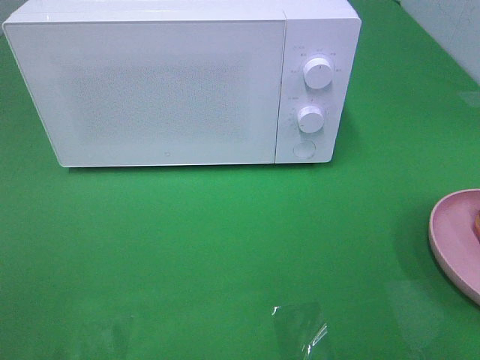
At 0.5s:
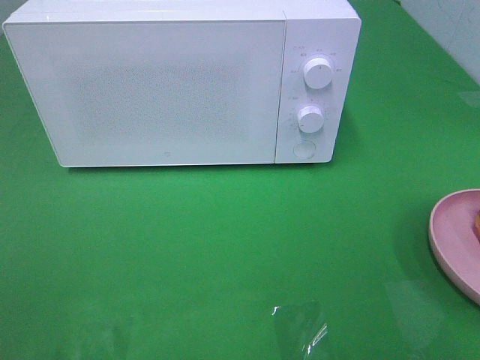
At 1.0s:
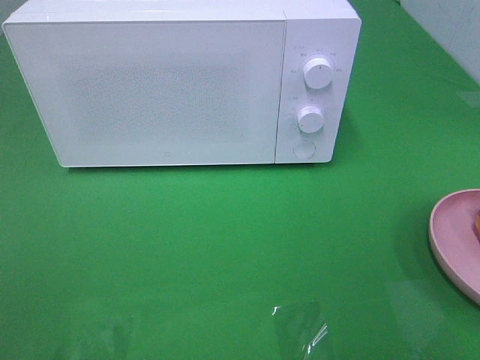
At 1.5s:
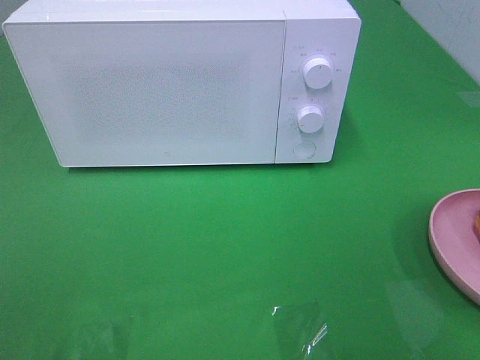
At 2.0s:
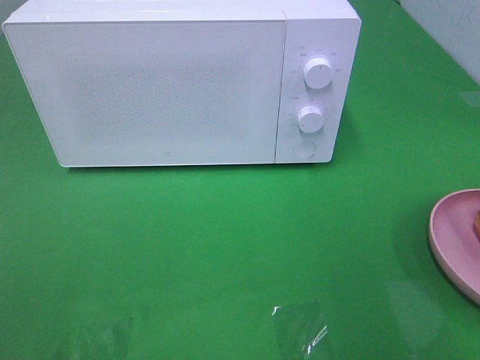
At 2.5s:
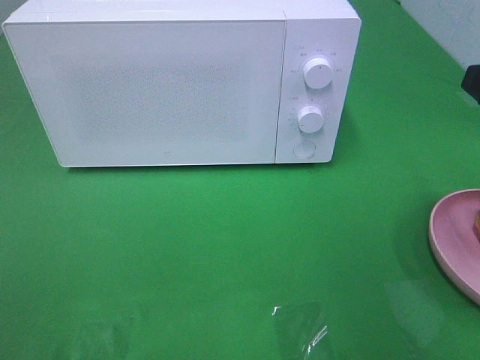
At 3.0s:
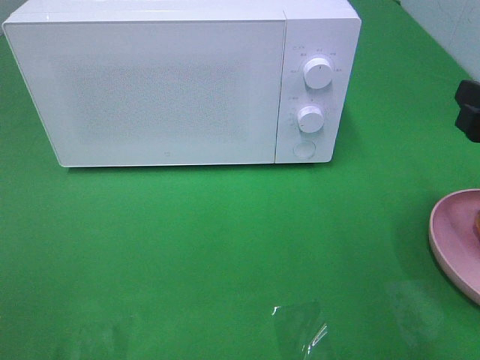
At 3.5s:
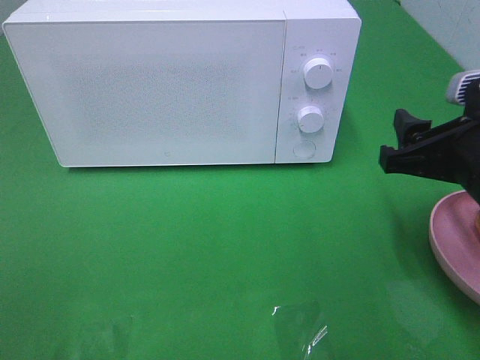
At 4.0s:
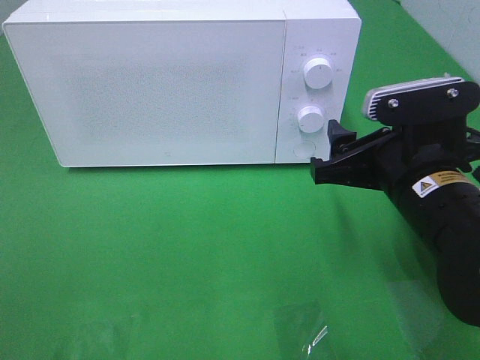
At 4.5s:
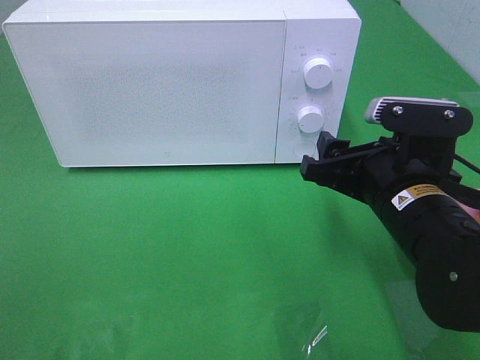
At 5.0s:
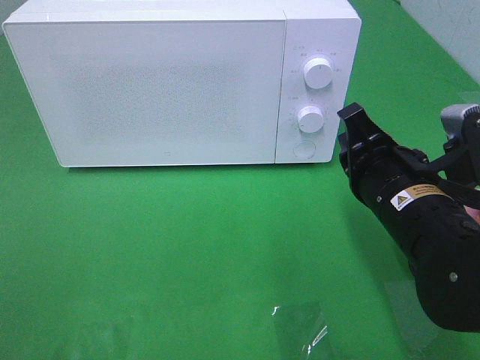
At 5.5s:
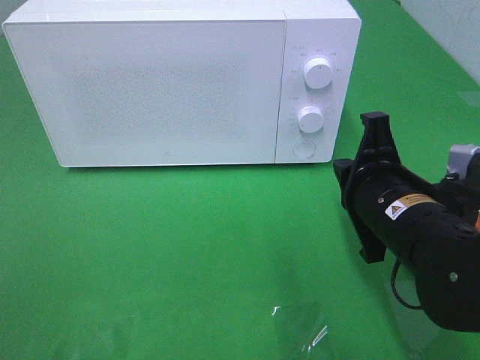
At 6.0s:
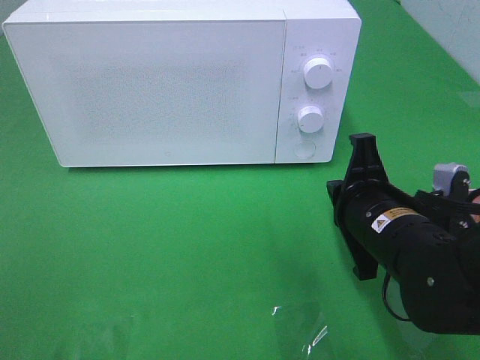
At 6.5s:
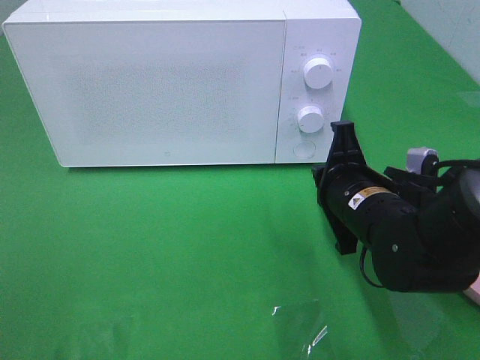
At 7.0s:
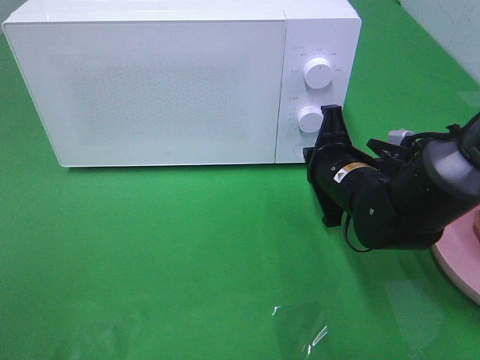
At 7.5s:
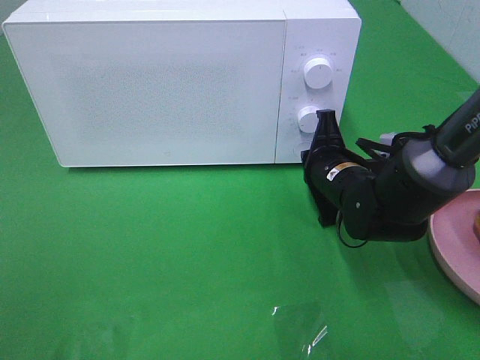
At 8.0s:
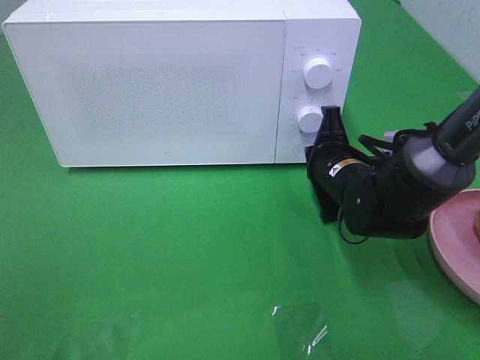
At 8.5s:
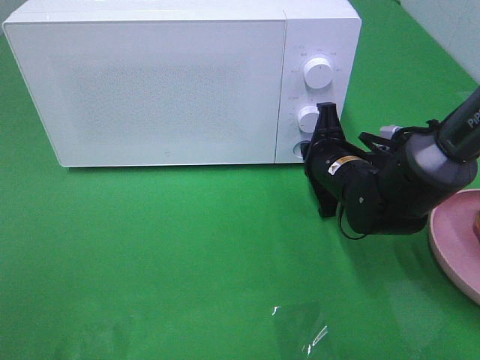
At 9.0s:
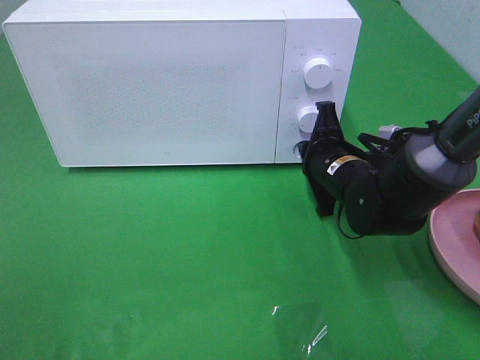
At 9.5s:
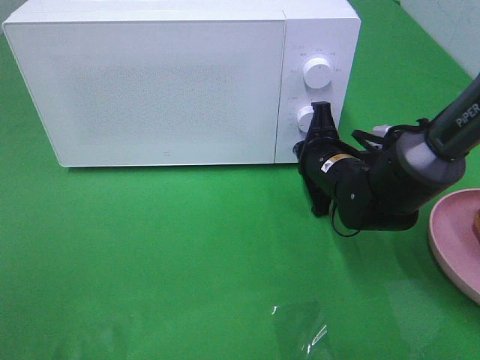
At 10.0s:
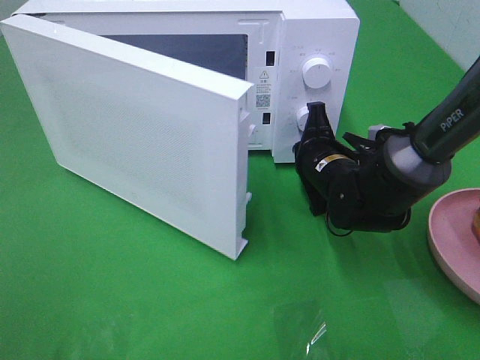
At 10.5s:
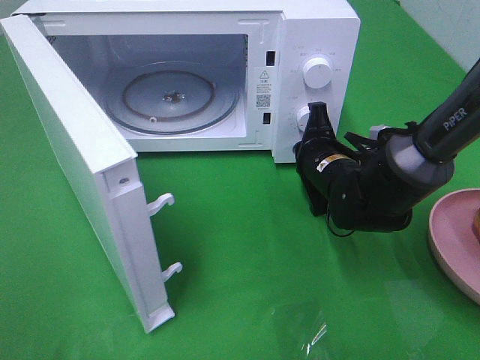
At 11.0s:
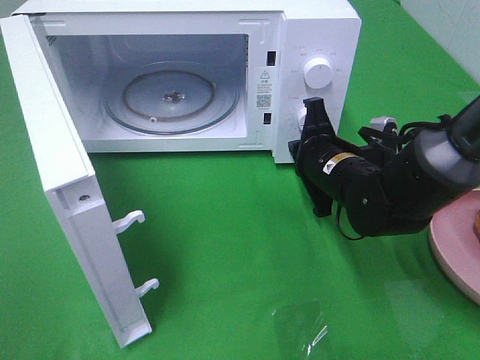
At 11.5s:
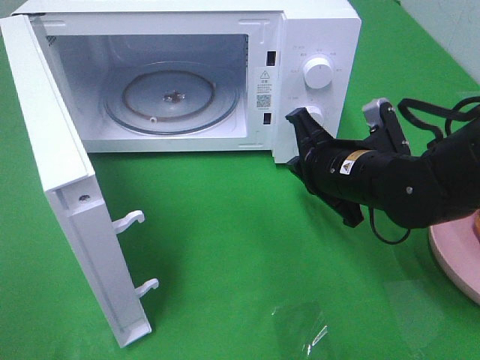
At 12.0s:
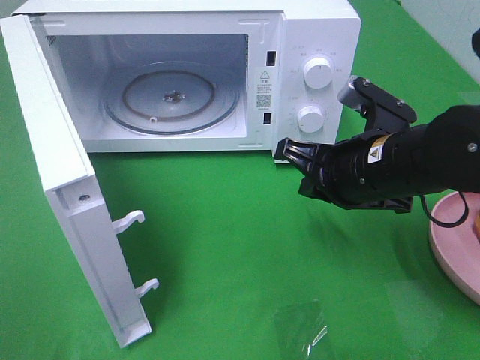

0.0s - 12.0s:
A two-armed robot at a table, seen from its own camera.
Task of the whole recording: Heat the burger.
Step, 0.0s - 10.5s: Right hand: press the switch.
2.0s - 4.0s: The right gripper goes about 20 cm downward, to the left and forward.
4.0s - 6.0s: The right gripper shifts some 5 cm downward, and closes its fingers.
6.0s - 8.0s: The right gripper shifts some 10 cm forward.
10.0s - 12.0s: The right gripper goes approximately 15 cm backward and upward.

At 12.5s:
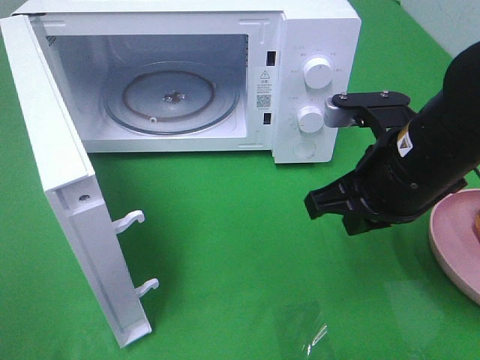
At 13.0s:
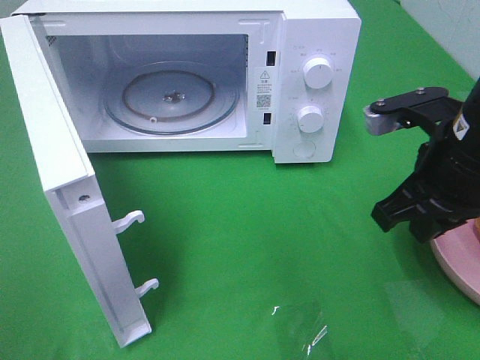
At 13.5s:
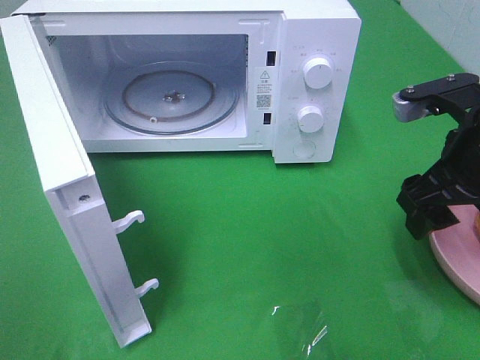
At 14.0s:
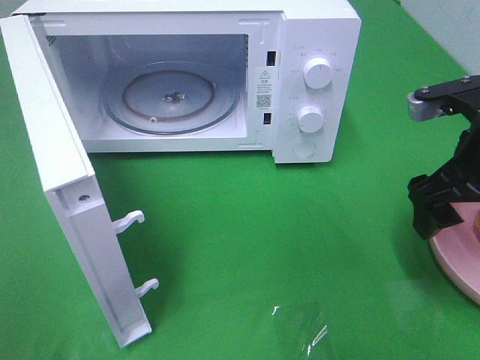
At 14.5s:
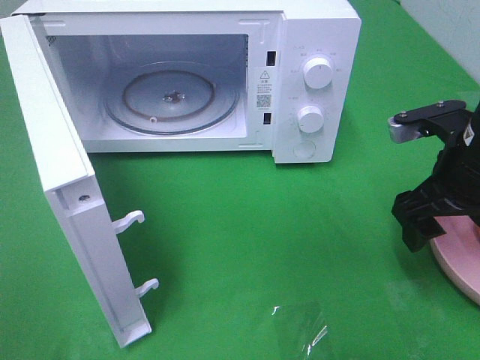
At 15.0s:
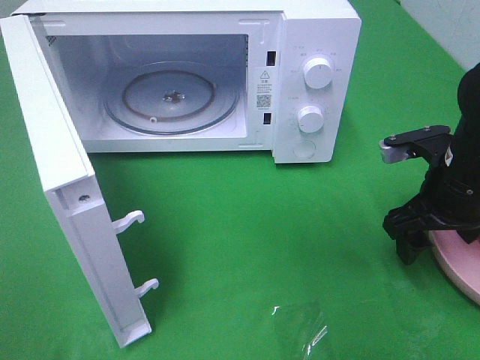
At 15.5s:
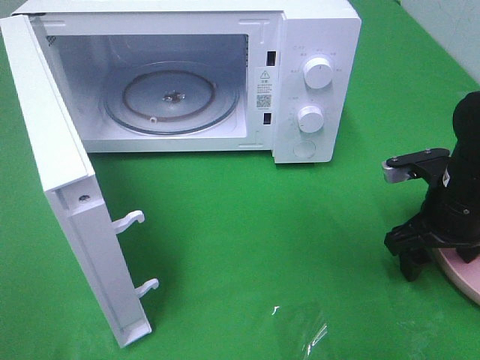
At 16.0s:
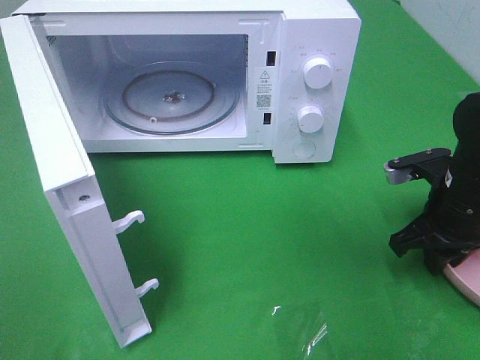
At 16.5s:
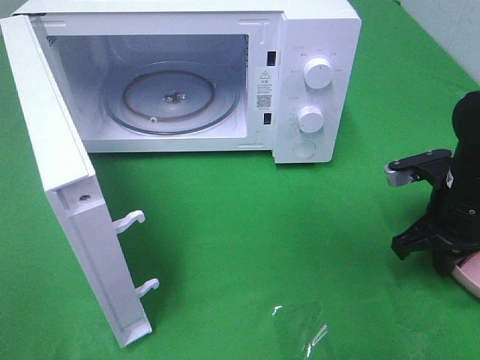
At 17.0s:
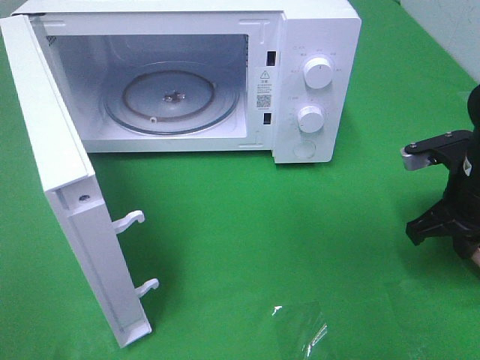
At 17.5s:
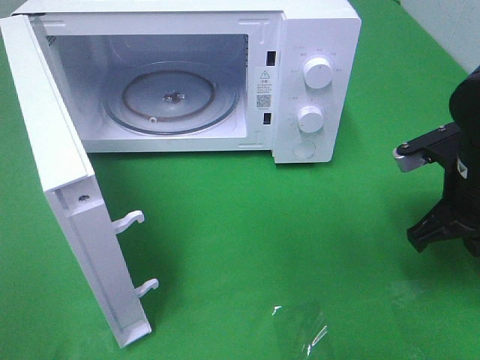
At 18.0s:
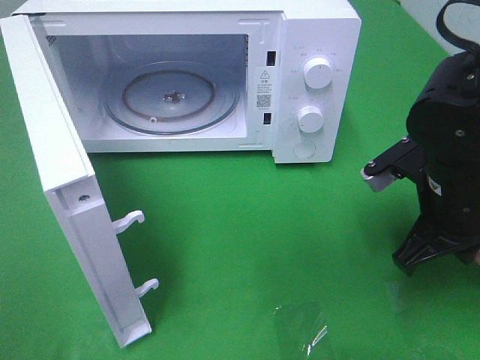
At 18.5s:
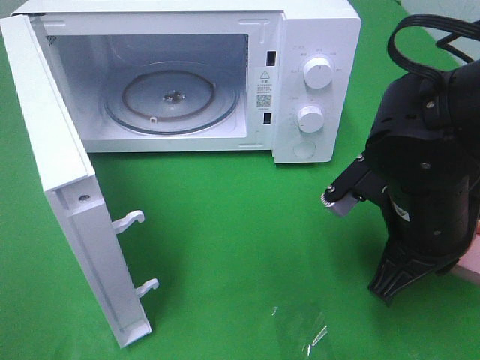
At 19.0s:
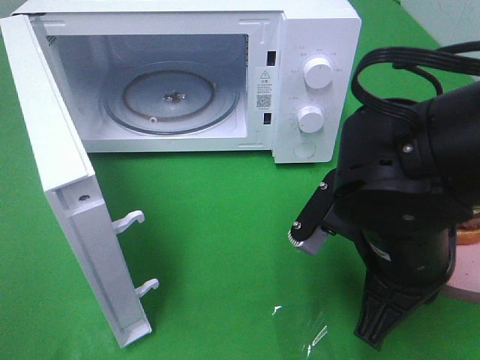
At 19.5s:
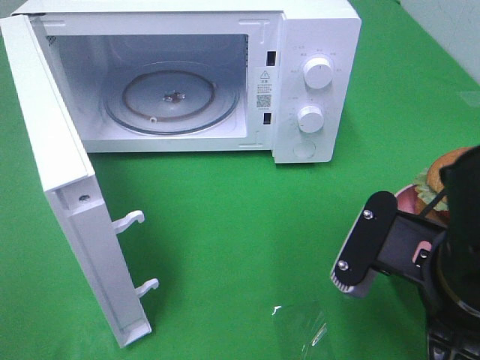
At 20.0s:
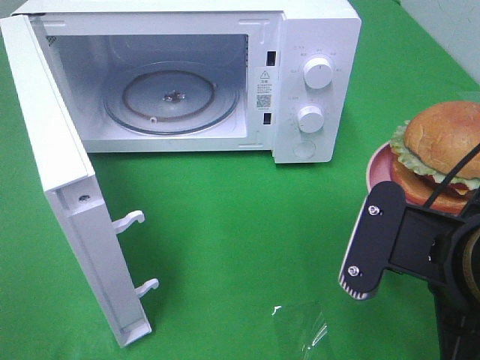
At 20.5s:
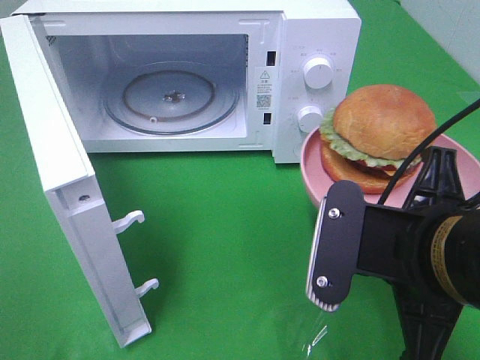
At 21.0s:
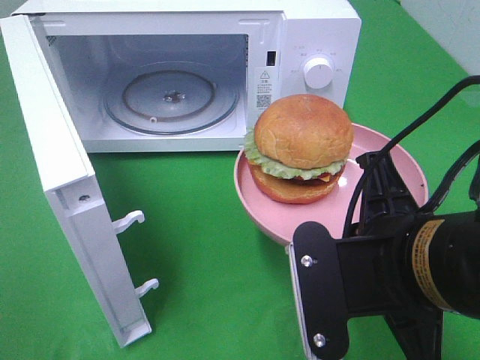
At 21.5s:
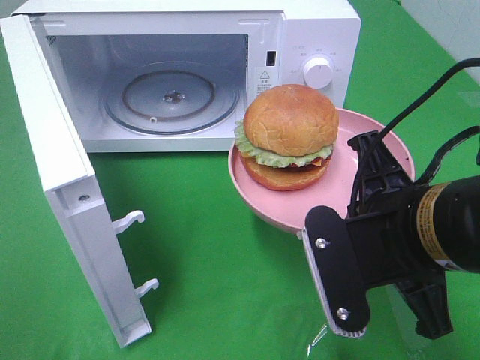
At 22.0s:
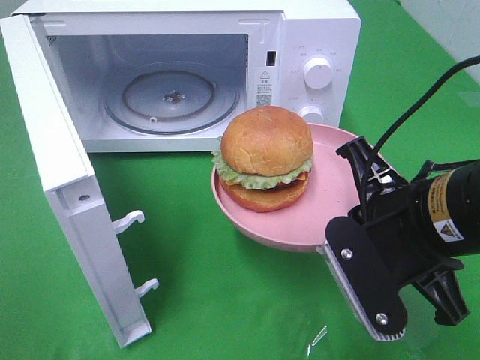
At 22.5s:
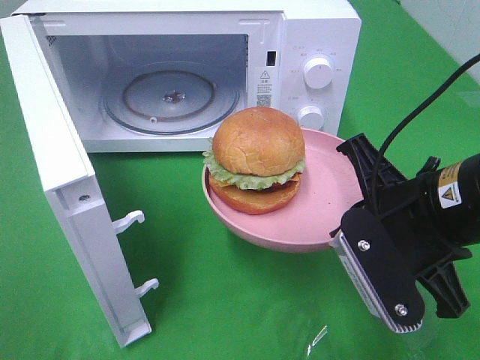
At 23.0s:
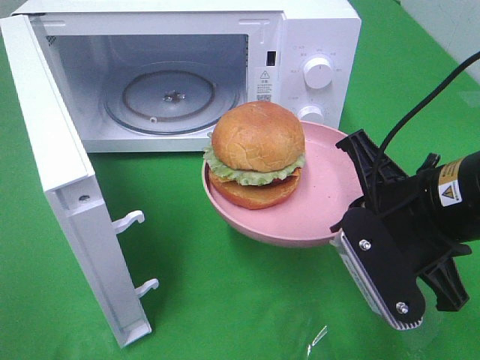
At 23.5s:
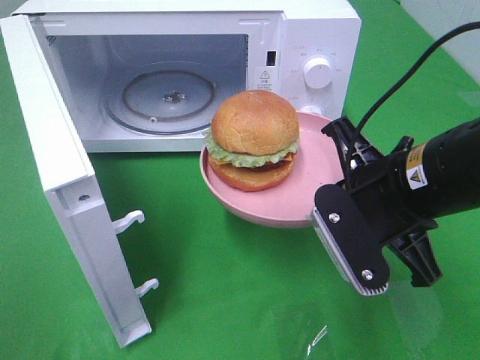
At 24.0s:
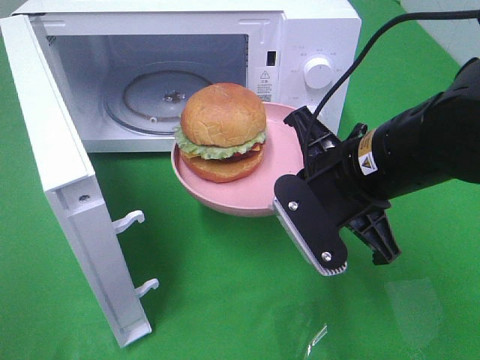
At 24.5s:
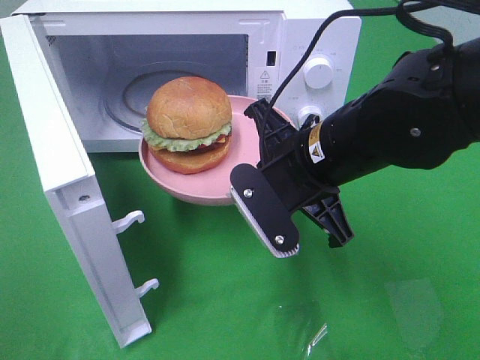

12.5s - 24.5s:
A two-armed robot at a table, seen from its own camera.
Task of the whole recording: Heat the burger.
Step, 12.5s - 16.0s: Right hand: grab the plate with the hamburger.
12.5s - 14.5s: The right gripper goes approximately 10 cm to the right, and opens.
14.5s - 16.5s: The right gripper is displaced downward by some 5 cm, and closes.
16.5s - 18.5s: The right gripper moves to the left, backward and upward, approximately 15 cm.
18.5s - 20.5s: The right gripper travels backward by approximately 10 cm.
20.5s - 22.5s: The right gripper shifts some 5 cm forward.
22.5s - 24.5s: The right gripper is displaced to the left and forward by roughly 10 cm.

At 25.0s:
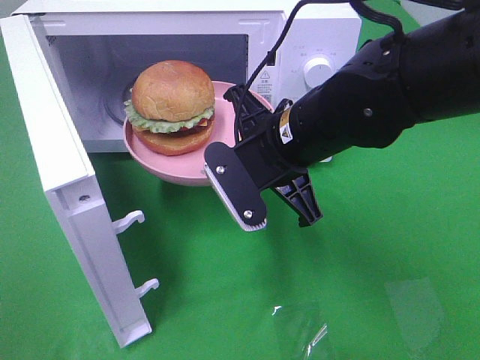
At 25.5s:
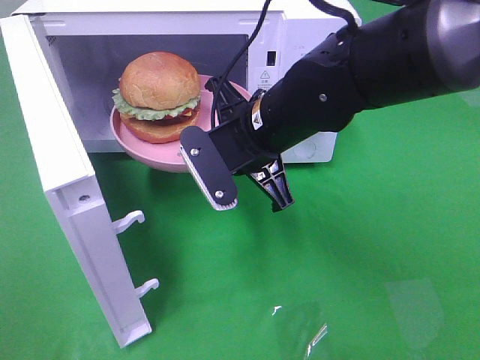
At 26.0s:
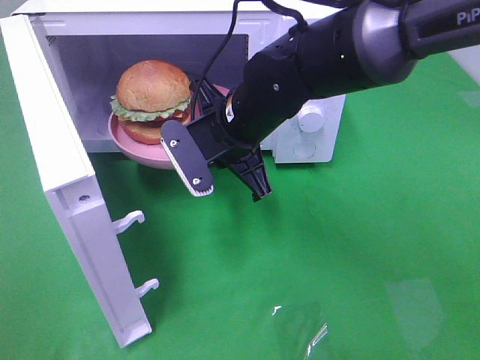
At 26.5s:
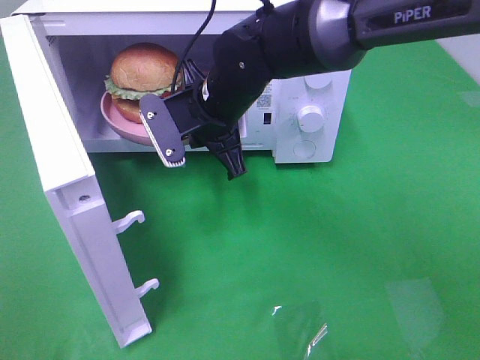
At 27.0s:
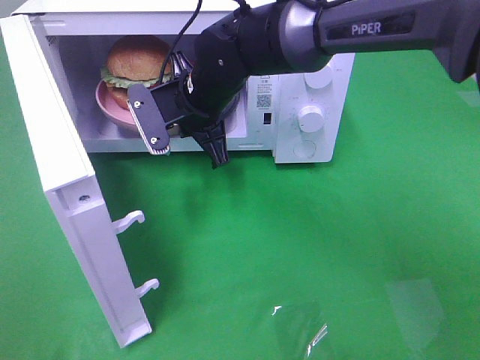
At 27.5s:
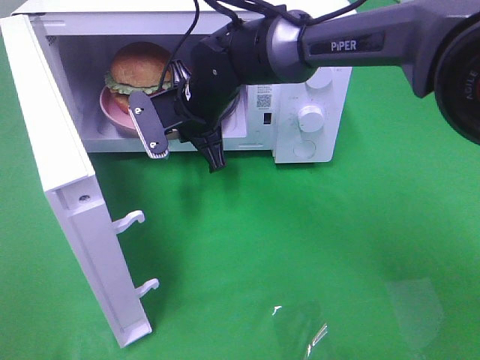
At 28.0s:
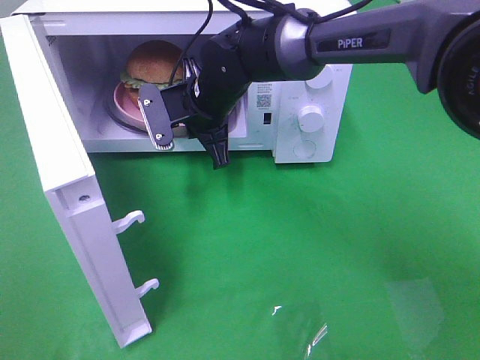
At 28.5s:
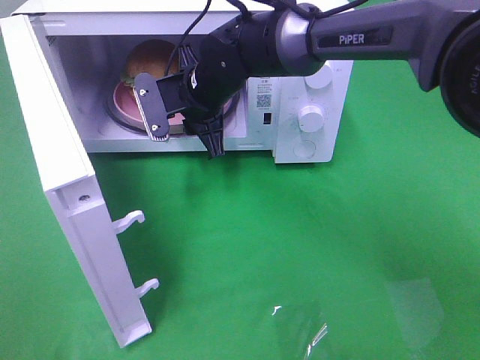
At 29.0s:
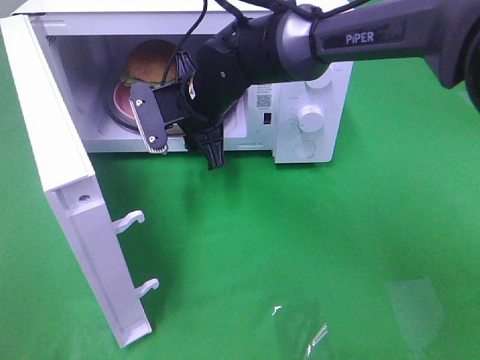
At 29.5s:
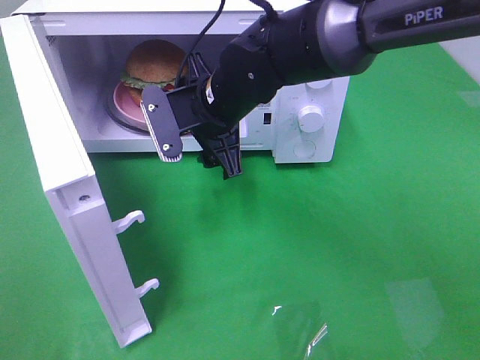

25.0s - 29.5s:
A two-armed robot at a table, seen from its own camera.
Task of the whole recording: Heat the burger.
25.0s - 27.0s: The right gripper is displaced forward and to the left by about 15 cm.
27.0s - 29.5s: The right gripper opens.
